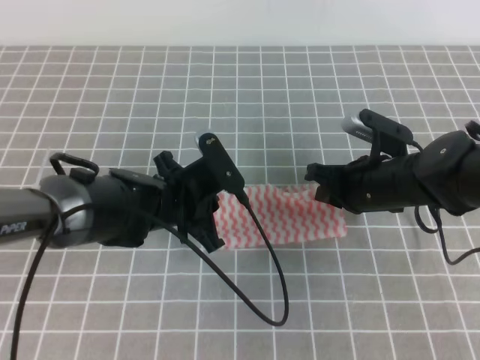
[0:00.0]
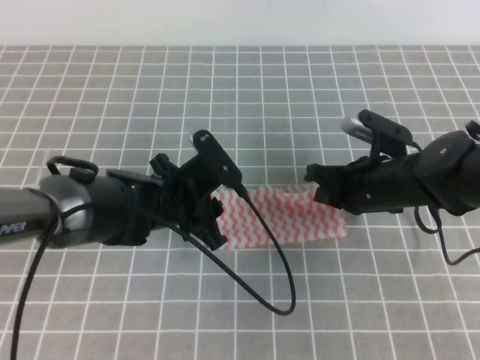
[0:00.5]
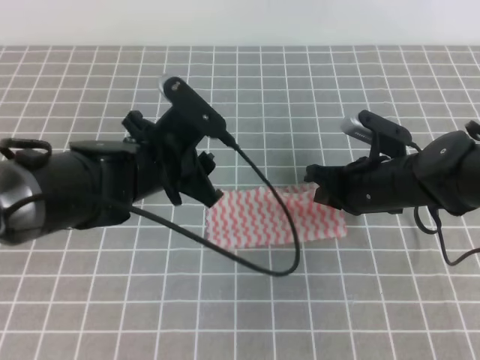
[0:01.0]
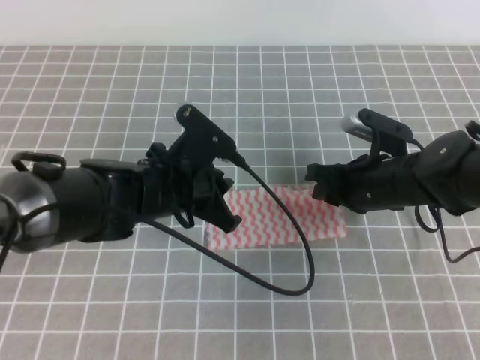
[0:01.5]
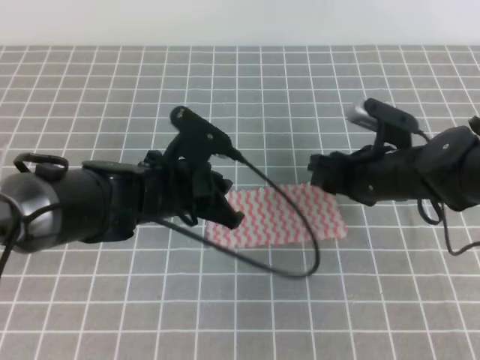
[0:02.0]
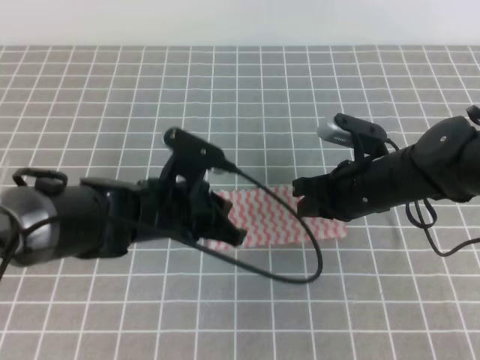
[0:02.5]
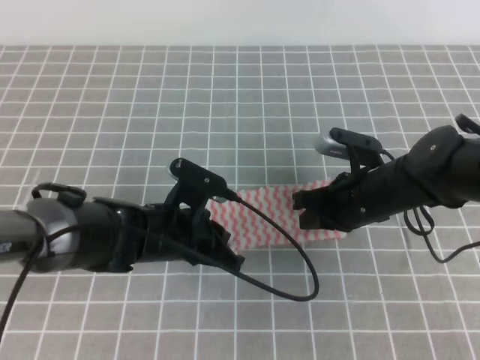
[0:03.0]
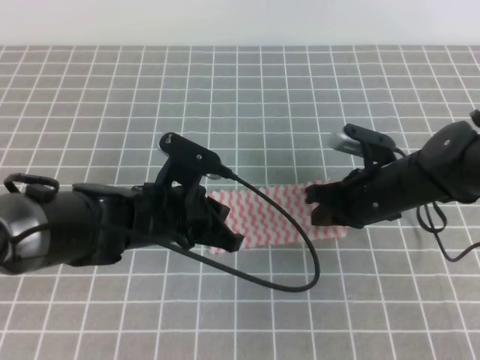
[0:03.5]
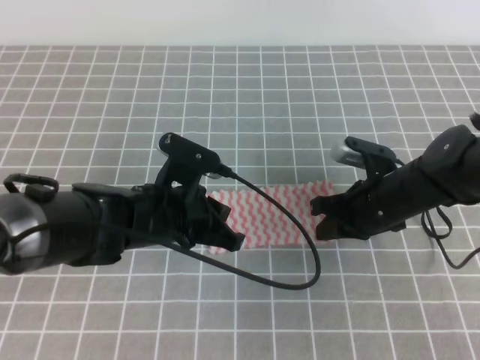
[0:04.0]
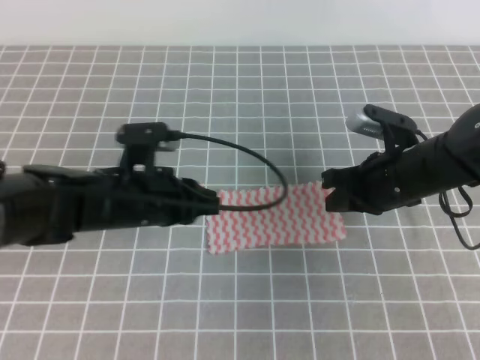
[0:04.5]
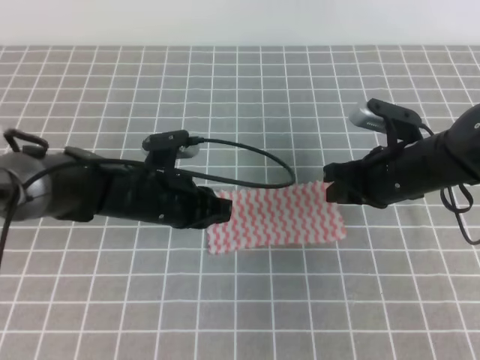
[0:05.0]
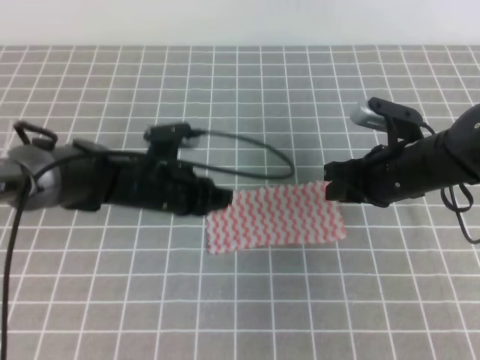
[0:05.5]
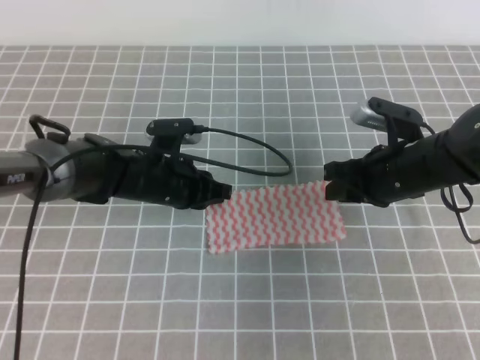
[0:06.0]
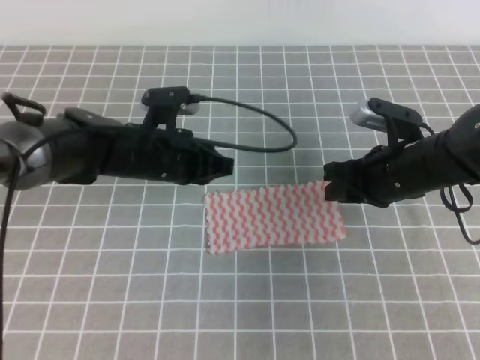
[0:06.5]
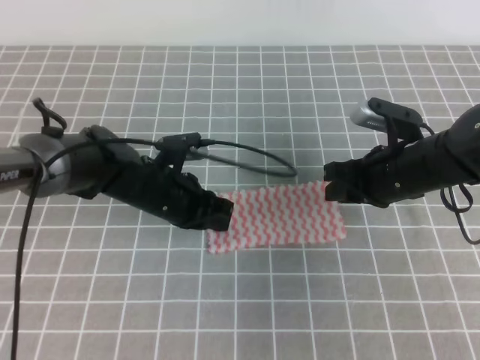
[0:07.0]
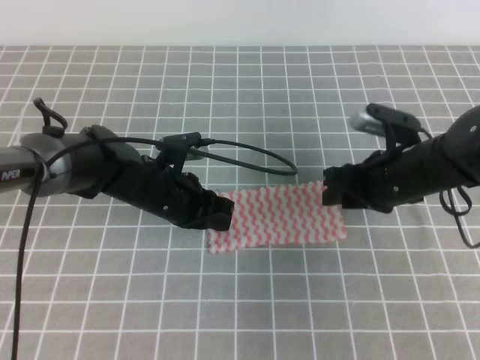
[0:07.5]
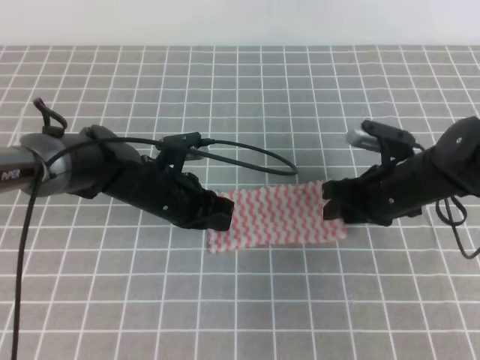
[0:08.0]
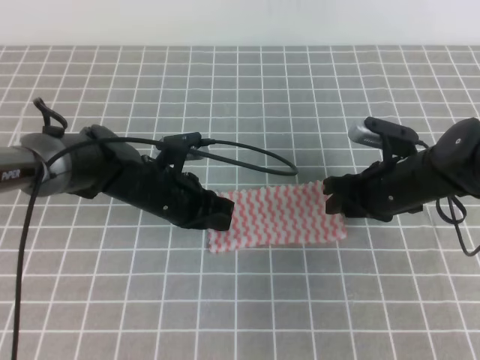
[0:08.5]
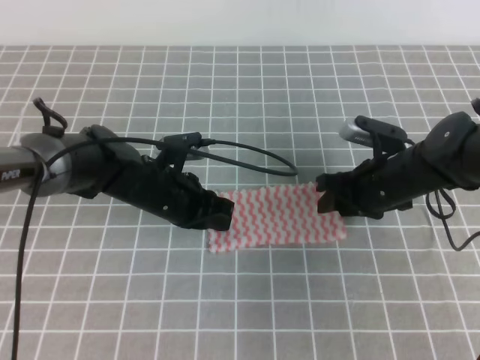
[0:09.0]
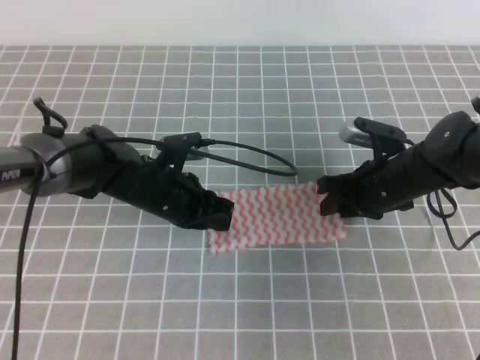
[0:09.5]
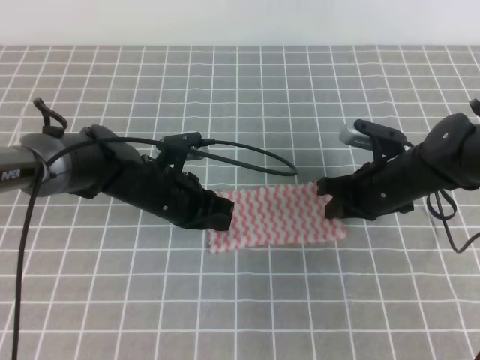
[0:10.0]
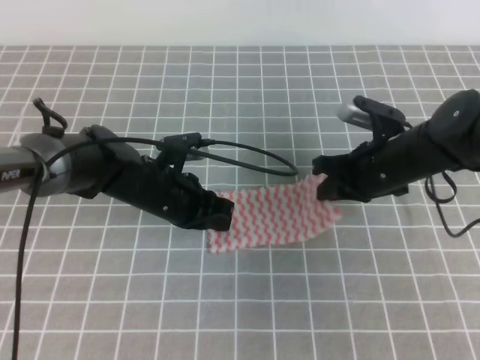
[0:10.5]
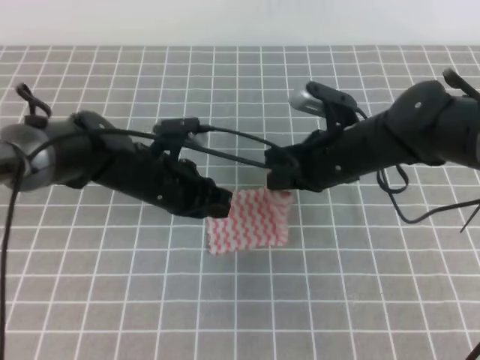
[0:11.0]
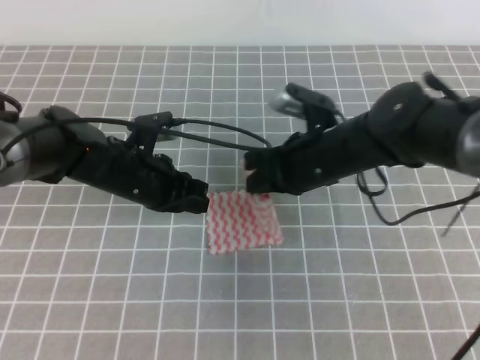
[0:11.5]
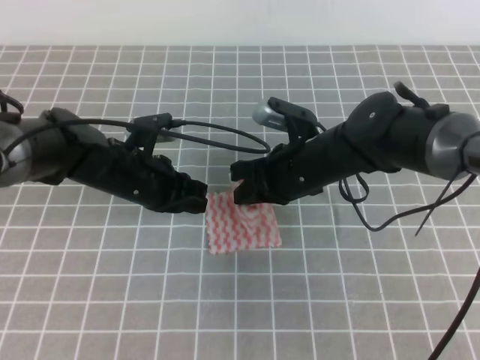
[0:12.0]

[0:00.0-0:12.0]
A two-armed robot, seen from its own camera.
0:00.0 to 0:02.0: The right gripper opens up, while the left gripper opens, then closes again.
0:02.0 to 0:04.0: The right gripper closes its fingers.
0:04.0 to 0:06.0: The right gripper opens its fingers; the left gripper is displaced forward by roughly 10 cm.
0:06.0 to 0:08.0: The right gripper opens its fingers.
0:08.0 to 0:10.0: The right gripper closes.
0:10.0 to 0:12.0: The right gripper is displaced to the left by approximately 10 cm.

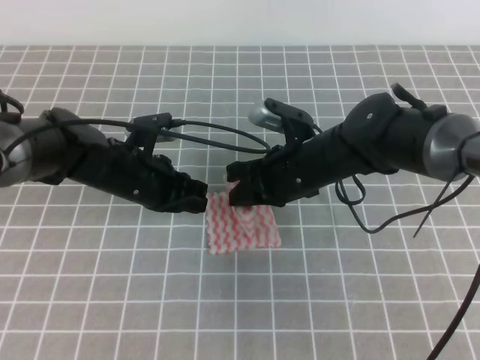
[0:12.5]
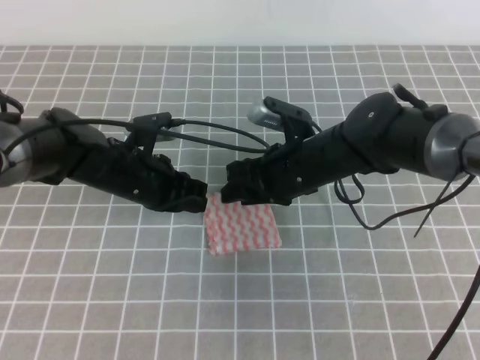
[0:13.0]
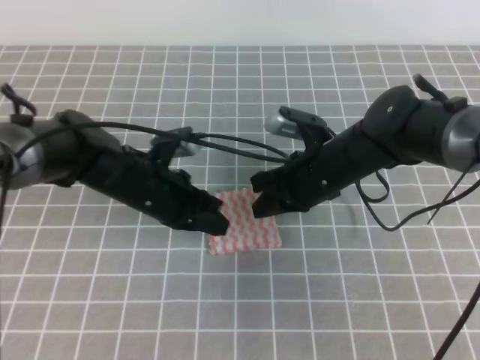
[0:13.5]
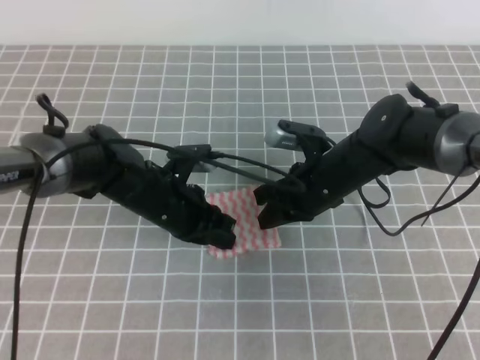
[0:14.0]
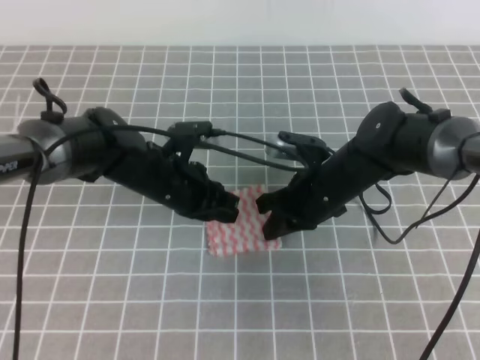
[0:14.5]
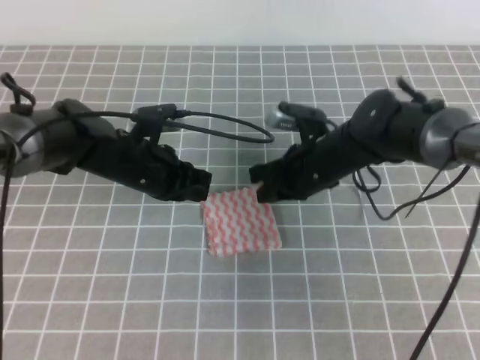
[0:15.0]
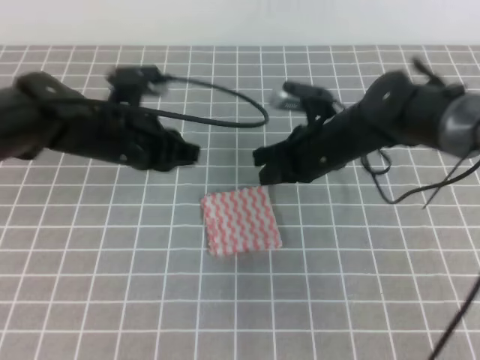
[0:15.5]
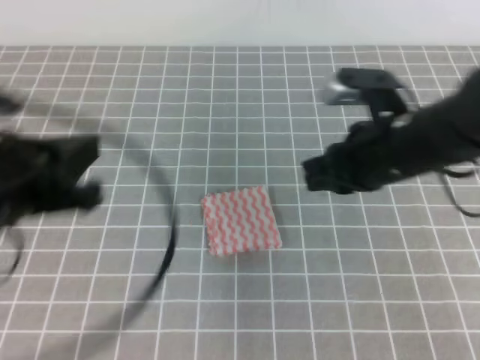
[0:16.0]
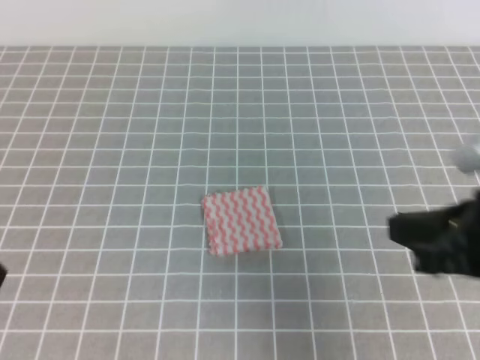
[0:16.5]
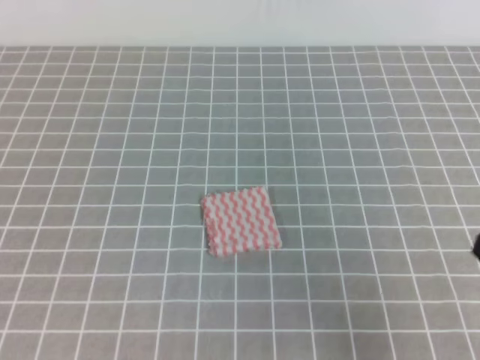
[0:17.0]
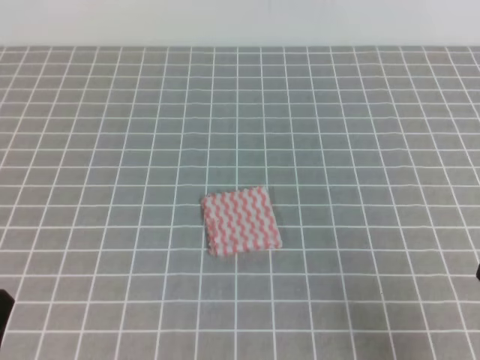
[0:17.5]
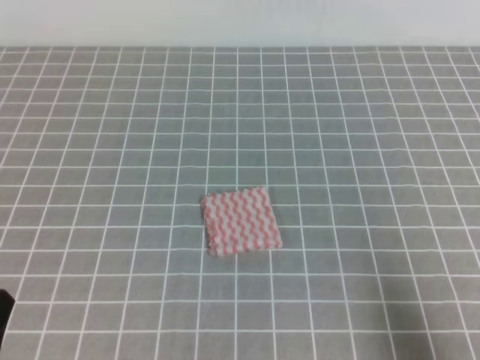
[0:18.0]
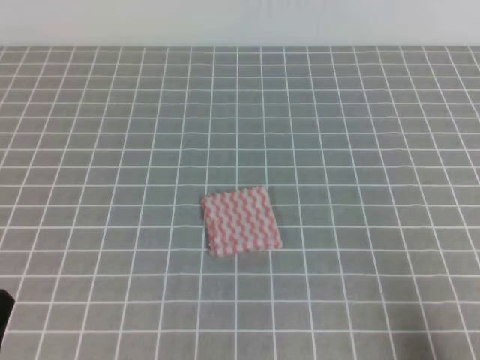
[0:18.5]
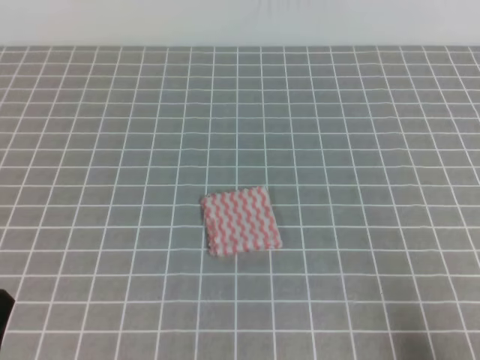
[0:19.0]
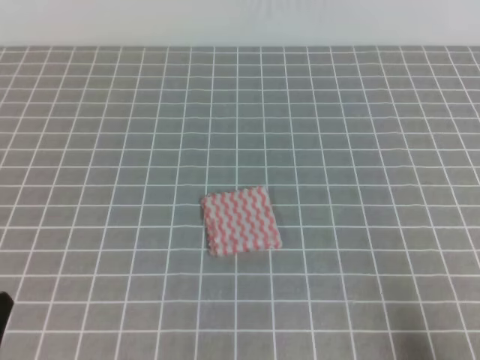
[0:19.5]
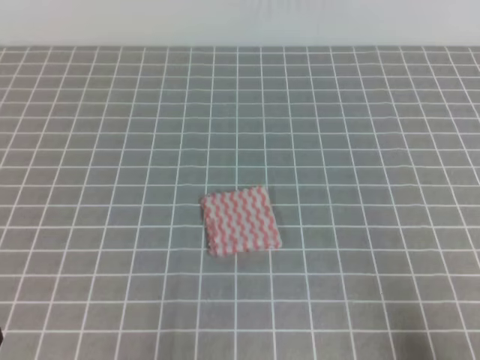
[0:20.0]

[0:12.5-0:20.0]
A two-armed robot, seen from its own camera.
Step, 0:12.5 to 0:20.0: Fold the towel.
0:12.5 to 0:14.5: The right gripper opens, then closes again.
0:14.5 to 0:16.5: The left gripper goes about 35 cm backward and to the left. The right gripper is displaced backward, upward and to the right by approximately 25 cm.
0:16.5 to 0:18.0: The right gripper heads downward, backward and to the right, covering about 15 cm; the left gripper goes roughly 5 cm downward.
